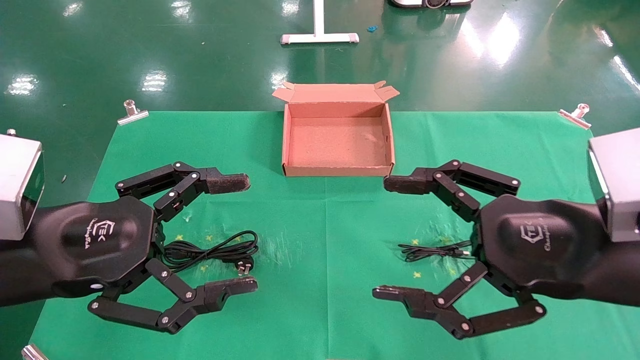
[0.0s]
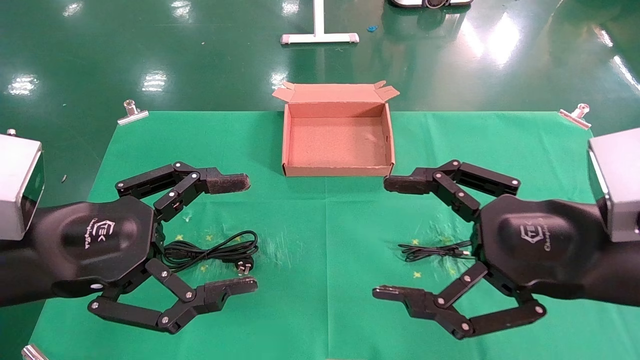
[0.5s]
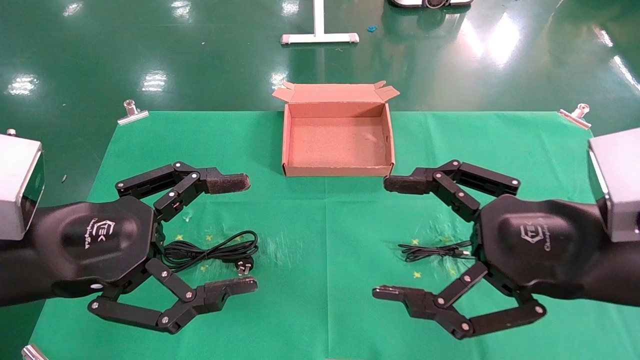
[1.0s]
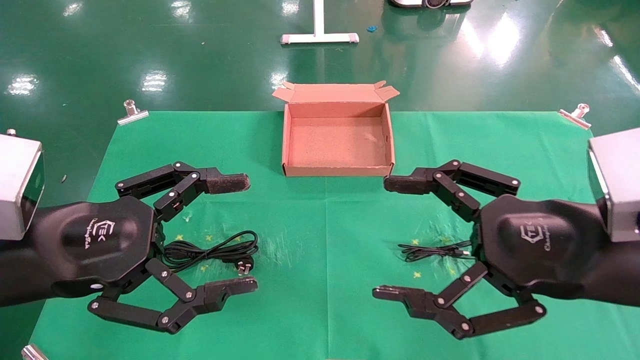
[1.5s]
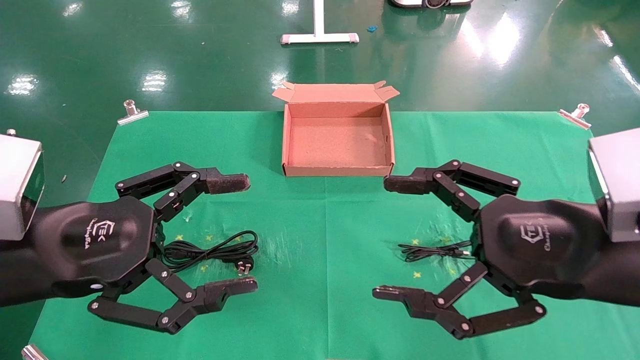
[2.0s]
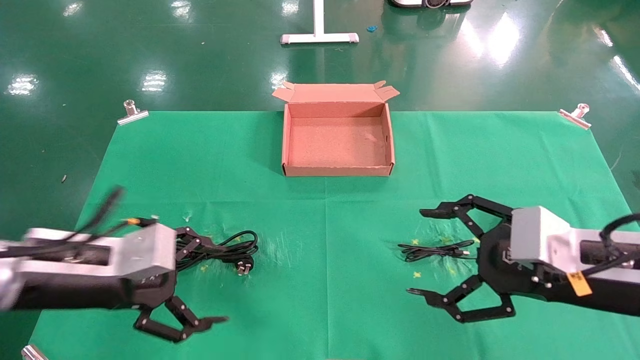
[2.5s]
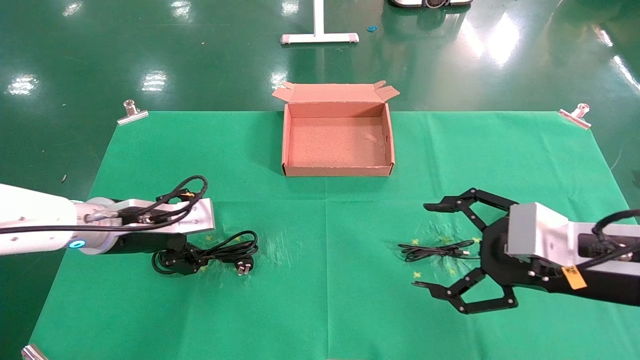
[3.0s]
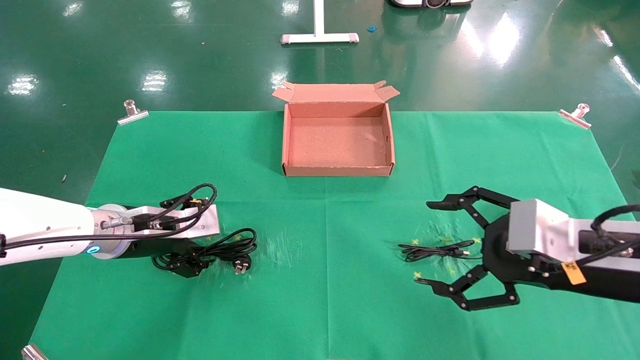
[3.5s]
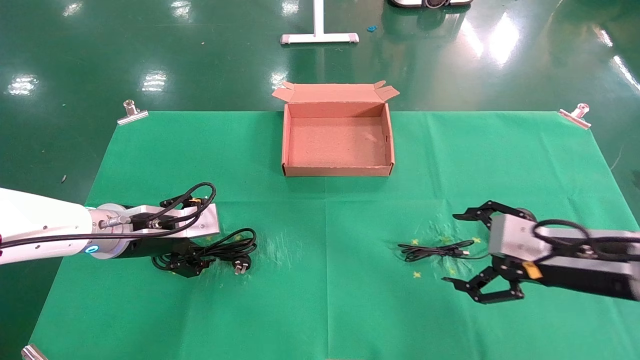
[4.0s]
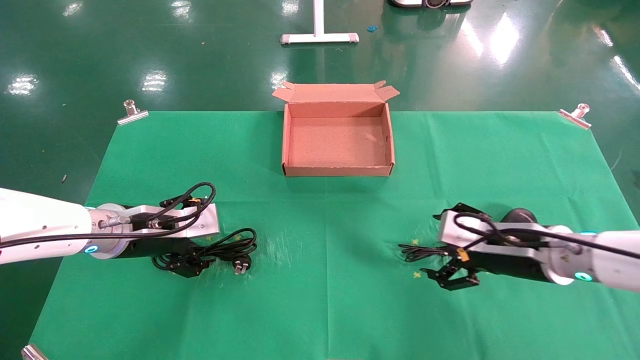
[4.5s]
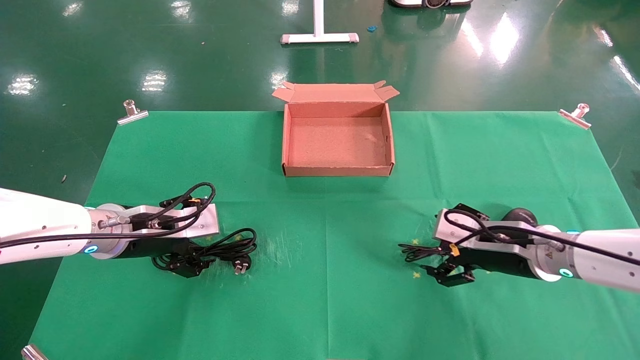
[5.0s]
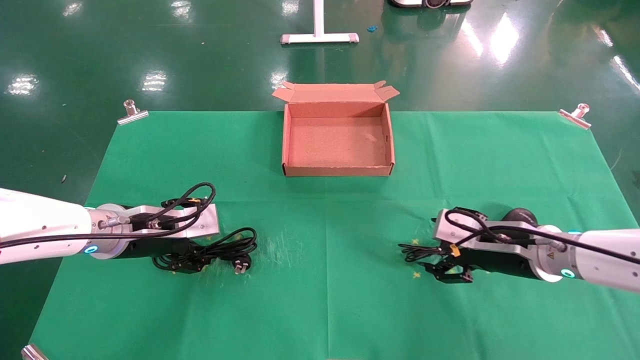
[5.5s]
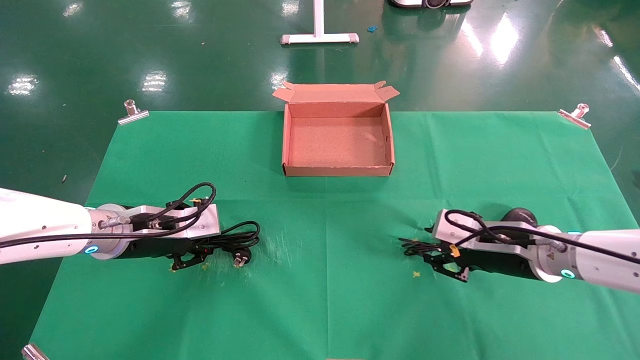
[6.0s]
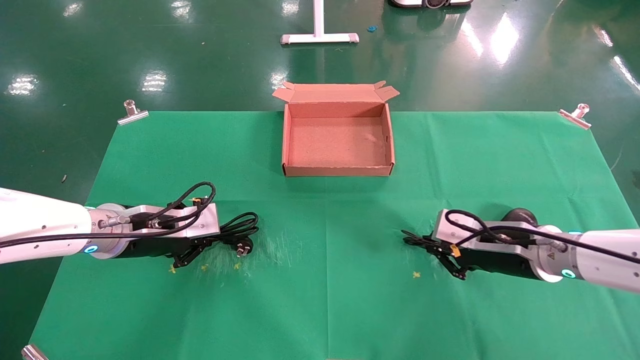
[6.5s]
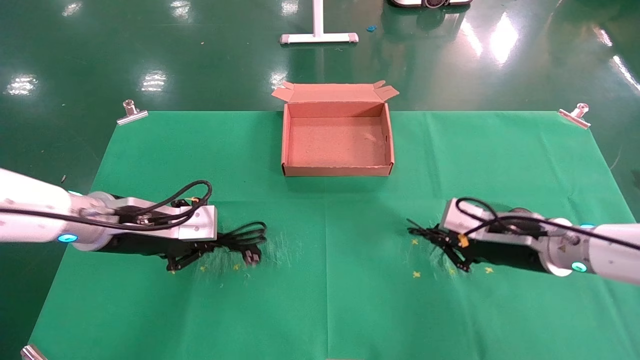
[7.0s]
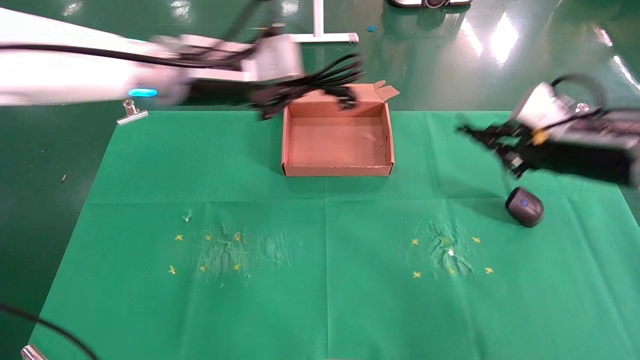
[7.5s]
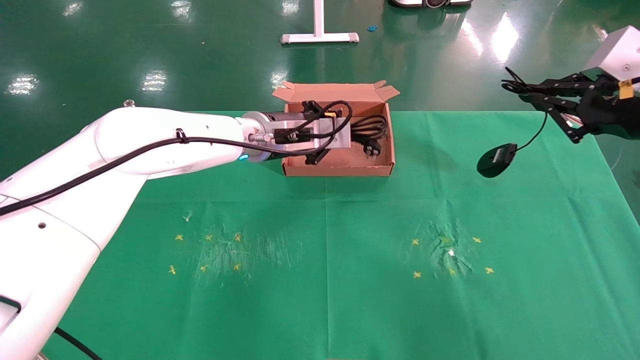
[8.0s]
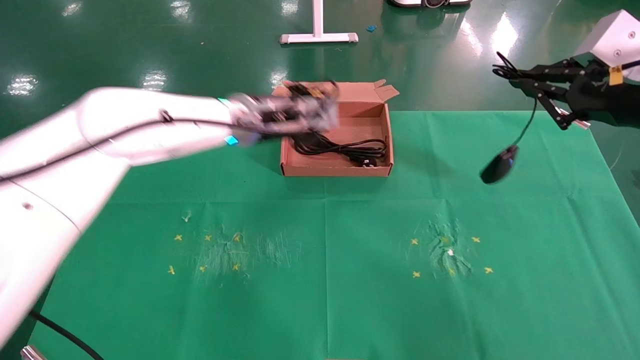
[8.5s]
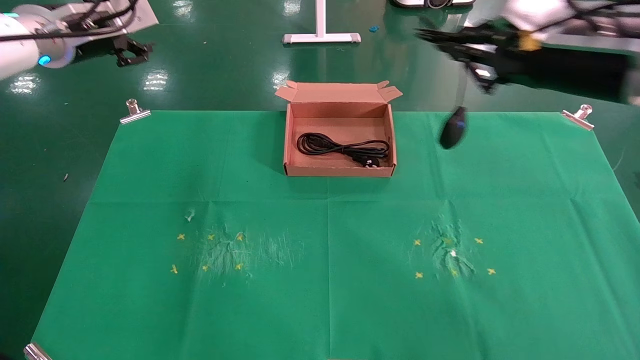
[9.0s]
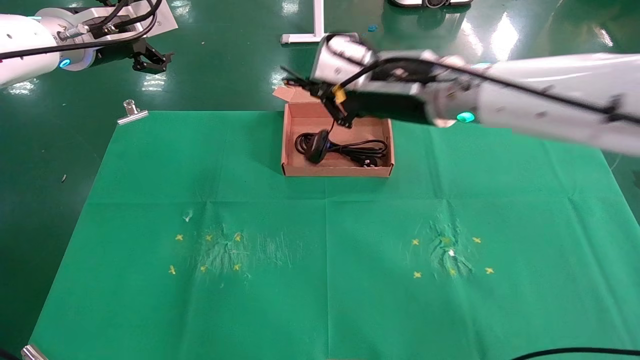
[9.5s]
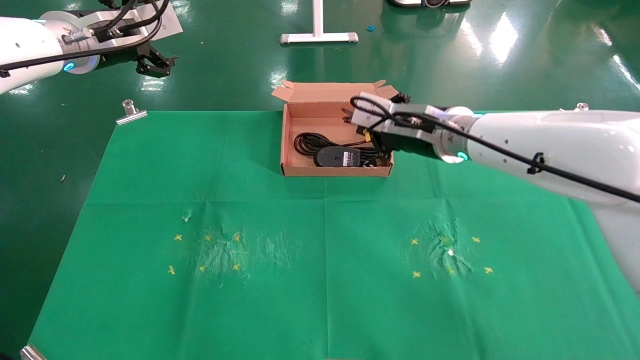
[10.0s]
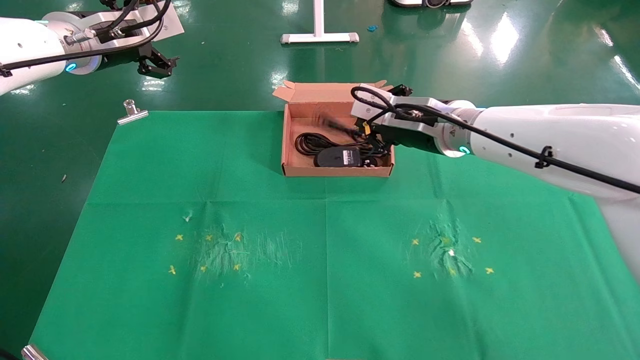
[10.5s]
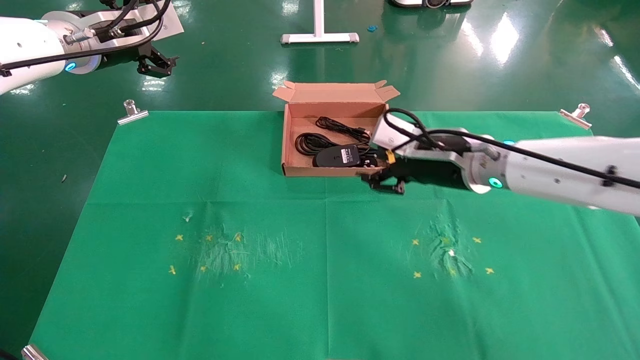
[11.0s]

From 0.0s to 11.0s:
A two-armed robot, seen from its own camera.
Task of the whole recording: grasp data cable left put into box grasp mouse right put into box.
Step, from 2.0s to 6.5s: Simultaneously pick up the mouse and power cord from the accessory packaging area.
Step, from 7.0s to 10.5s: Place the mouse and power cord into the box.
From 2.0s to 3.5s: The left gripper goes some 20 cm forward and downward. The right gripper shifts by roughly 5 cm.
From 3.5s to 5.5s: The right gripper heads forward and downward, covering approximately 15 cm.
From 5.5s to 7.5s: Both grippers move upward and to the right, some 20 cm. The right gripper closes its fingers. Meanwhile the left gripper closes its fingers.
From 7.5s to 9.0s: The left gripper travels to the left, forward and upward by some 20 cm, and opens, while the right gripper shifts some 10 cm upward and to the left.
From 9.0s to 11.0s: The left gripper opens its fingers; the right gripper shifts approximately 15 cm downward, to the left and forward, and opens.

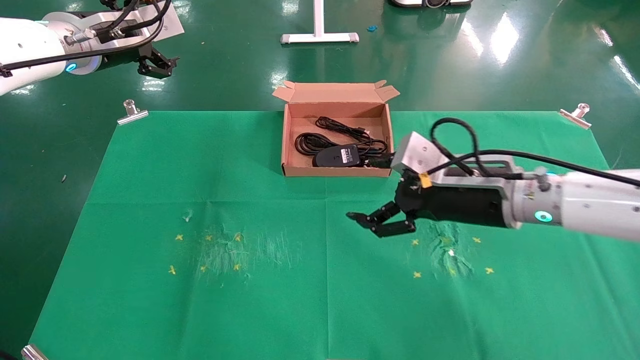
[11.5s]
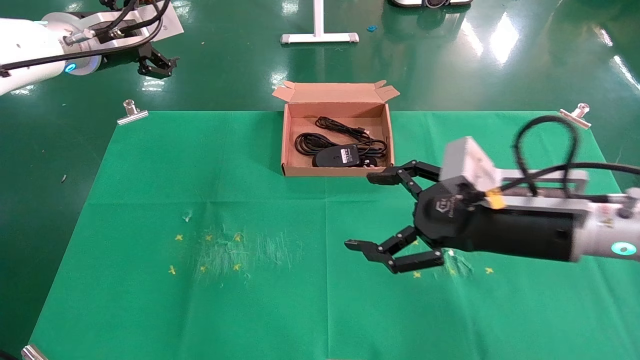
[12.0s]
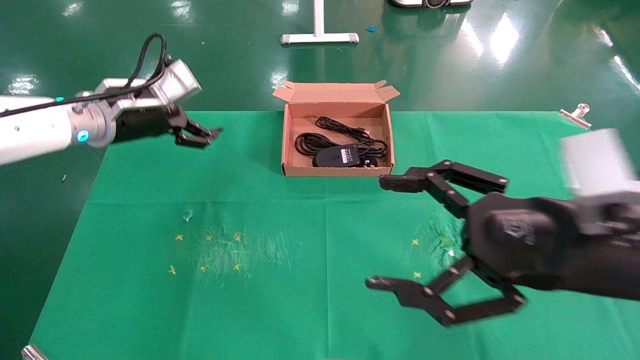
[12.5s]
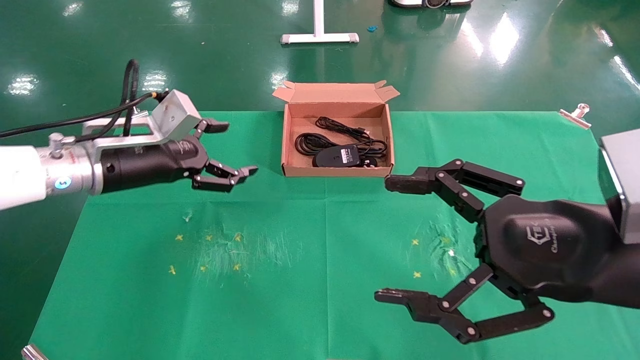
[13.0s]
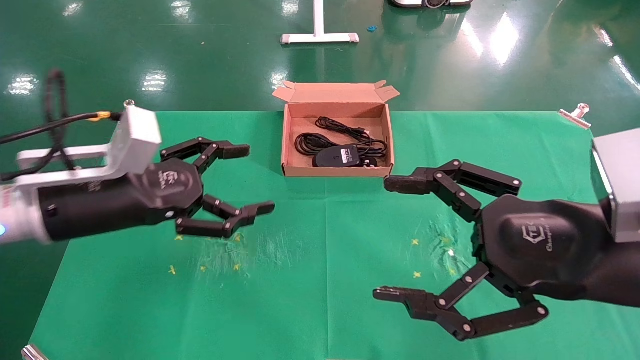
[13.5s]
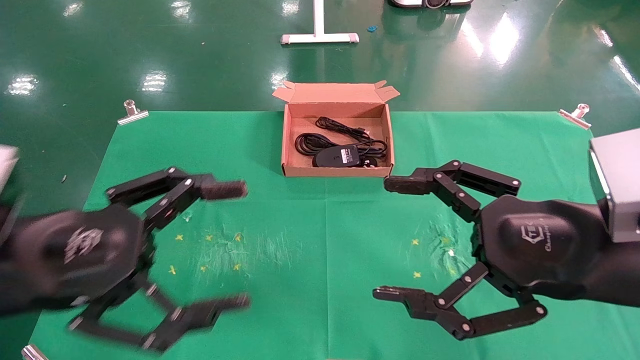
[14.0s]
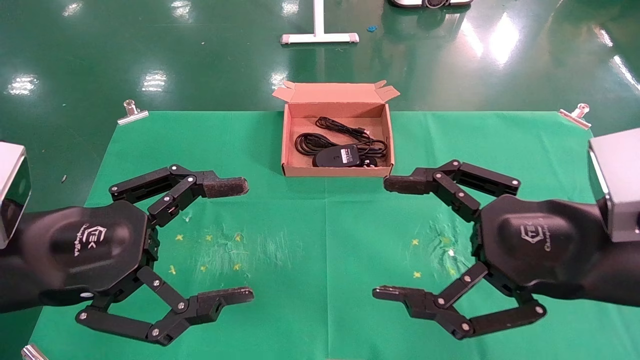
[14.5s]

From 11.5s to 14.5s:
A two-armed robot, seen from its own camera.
Task of the whole recording: grasp data cable left put into box grasp mouse right put into box.
From 11.5s to 13.0s: The left gripper moves downward and backward, approximately 15 cm; the right gripper travels backward by some 15 cm.
From 13.0s to 14.5s: The left gripper travels backward by about 20 cm.
